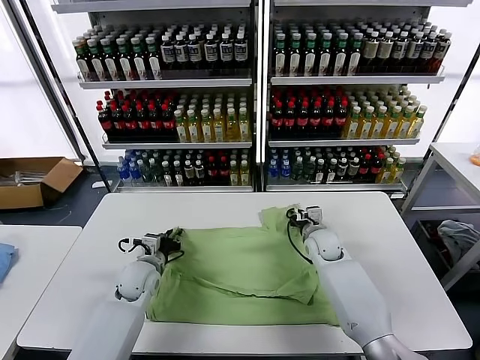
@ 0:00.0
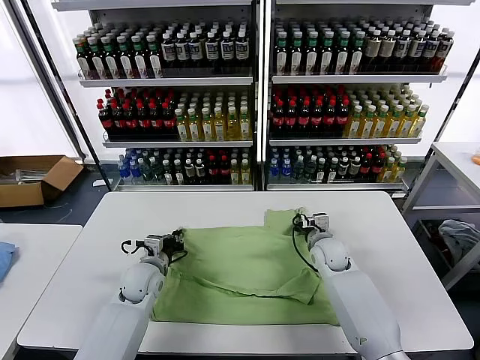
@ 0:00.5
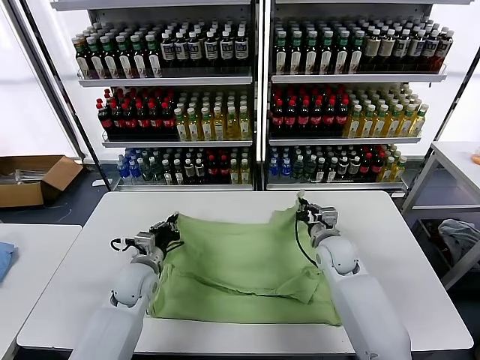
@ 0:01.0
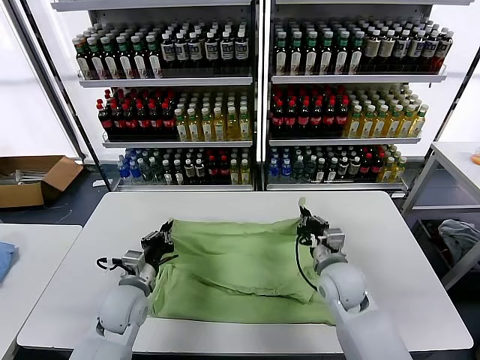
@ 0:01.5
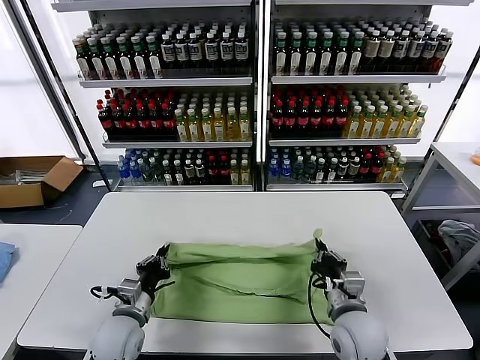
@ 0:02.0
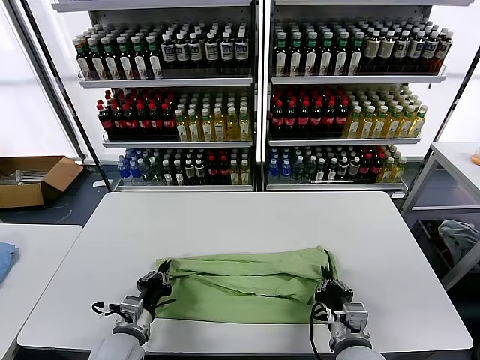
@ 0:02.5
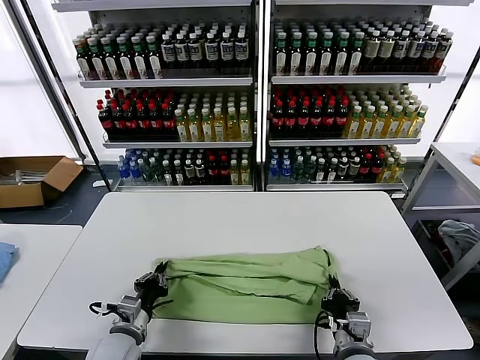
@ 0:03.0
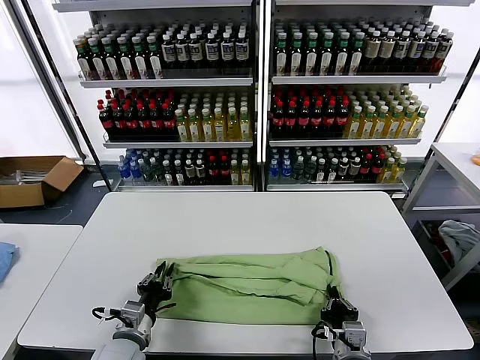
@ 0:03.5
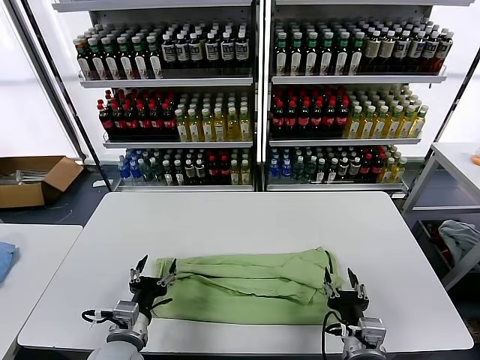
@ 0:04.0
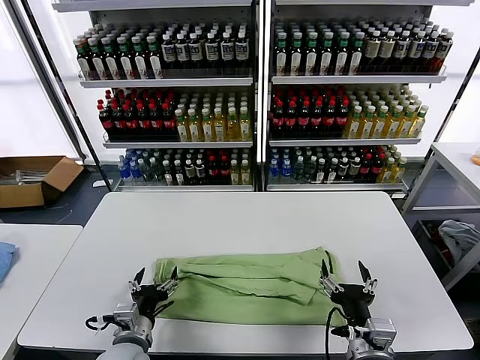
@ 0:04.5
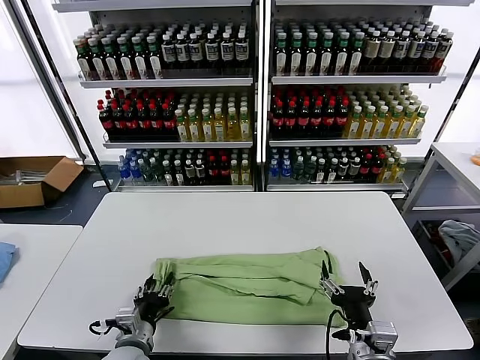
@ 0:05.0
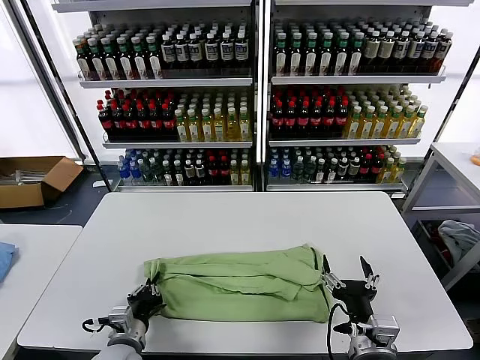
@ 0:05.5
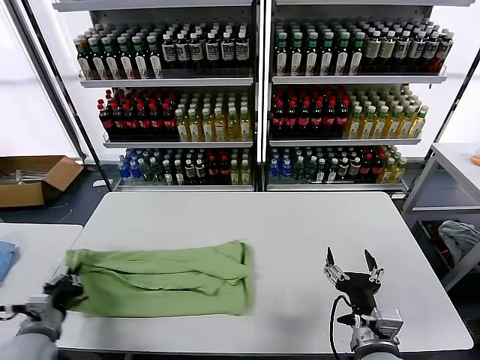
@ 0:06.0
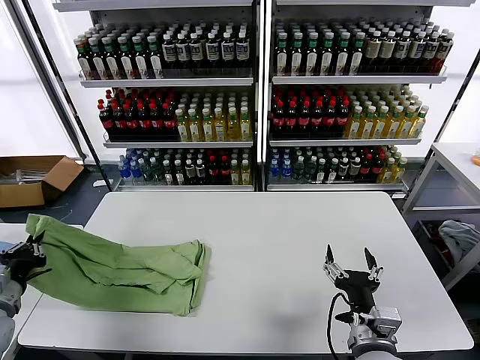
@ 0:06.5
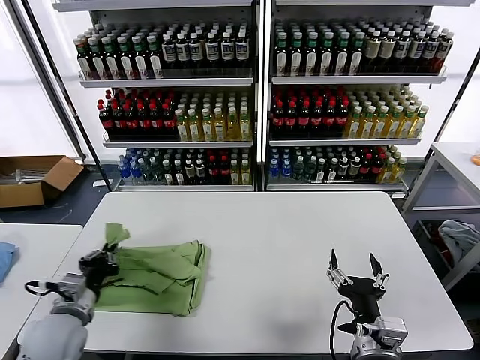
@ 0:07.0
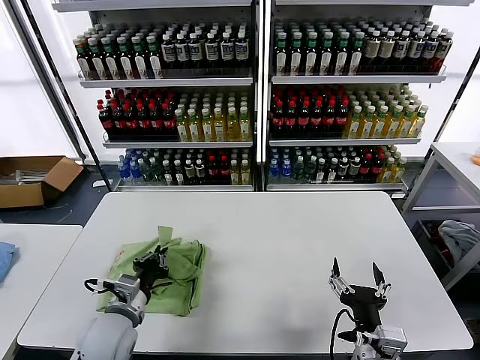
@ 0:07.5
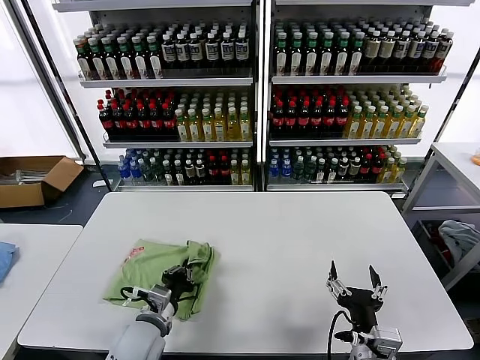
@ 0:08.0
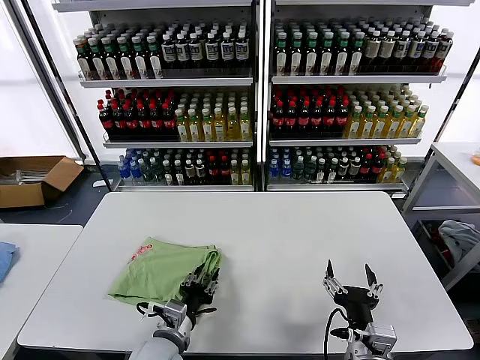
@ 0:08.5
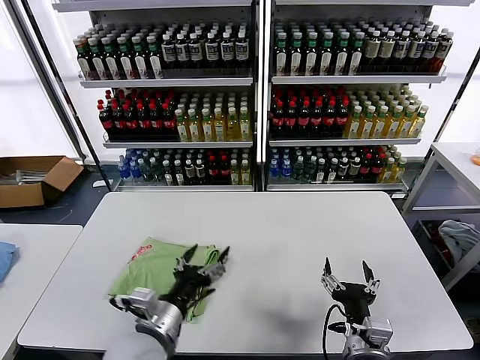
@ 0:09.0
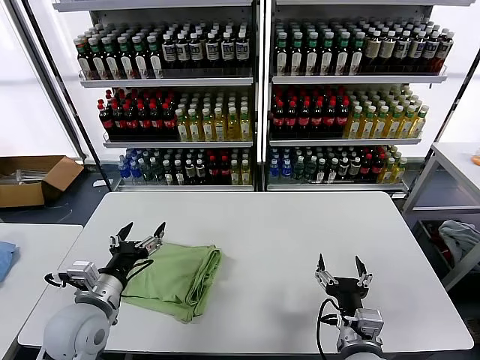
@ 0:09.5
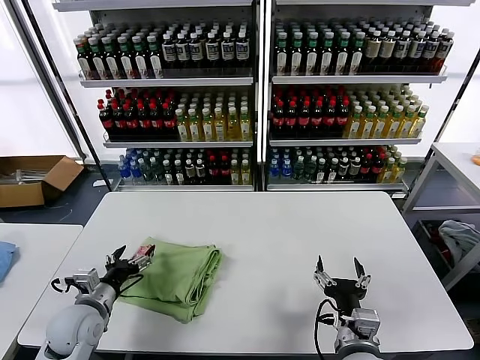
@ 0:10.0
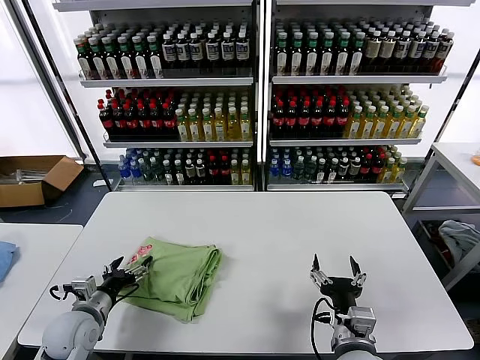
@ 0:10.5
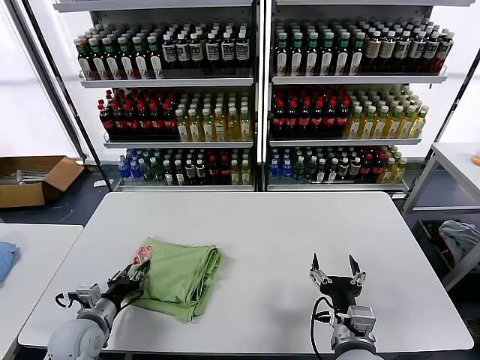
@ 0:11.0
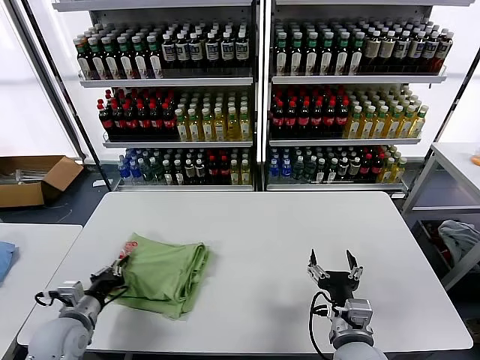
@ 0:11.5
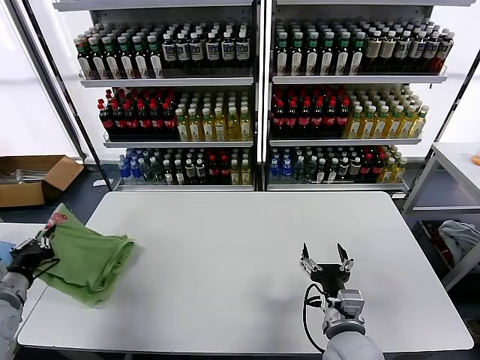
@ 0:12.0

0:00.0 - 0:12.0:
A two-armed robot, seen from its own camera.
Task of the whole recording: fold and organize the clothes.
Step, 0:00.5 - 0:03.5: use both grippers to drag the upper edge of the fabric backward and fold it over the lower edge.
Step, 0:04.5 - 0:05.0: use the left gripper to clamp the left edge of the fabric.
Step, 0:05.5 - 0:08.5: use the left gripper to drag the left edge of the fabric to the left and folds it over the right edge.
0:00.0 - 0:02.0: The left gripper shifts about 15 cm backward, while the right gripper heads backward, covering approximately 25 cm.
0:02.0 - 0:04.0: Both grippers move backward, approximately 5 cm. The right gripper opens its fingers. Meanwhile the left gripper opens its fingers.
0:04.0 - 0:06.0: The left gripper moves to the left, about 15 cm, and closes up.
0:06.0 - 0:08.0: The left gripper is displaced to the right by about 20 cm.
0:08.0 - 0:10.0: The left gripper shifts approximately 15 cm to the left, and opens up.
0:10.0 - 0:12.0: The left gripper travels to the left and upward by approximately 15 cm, and closes.

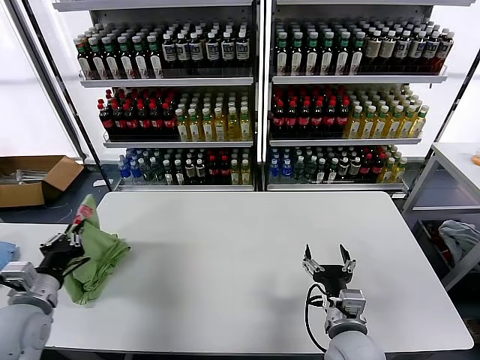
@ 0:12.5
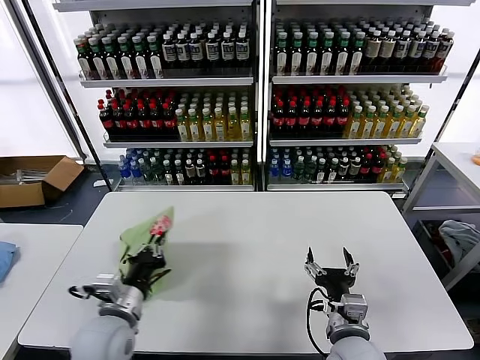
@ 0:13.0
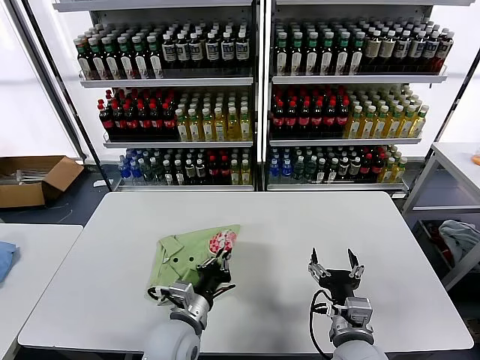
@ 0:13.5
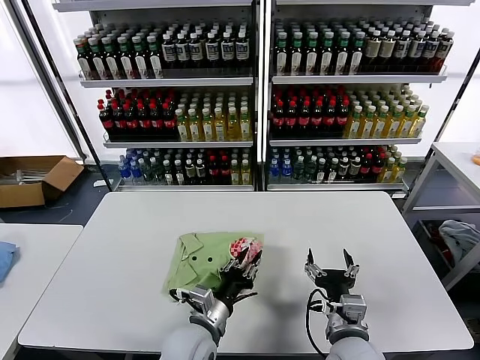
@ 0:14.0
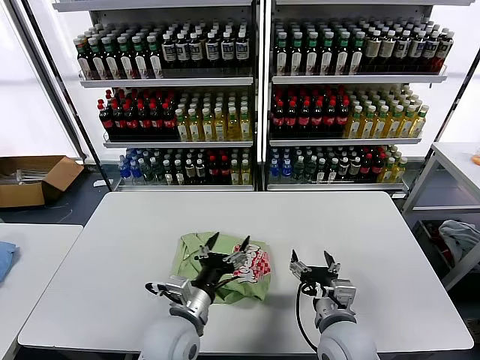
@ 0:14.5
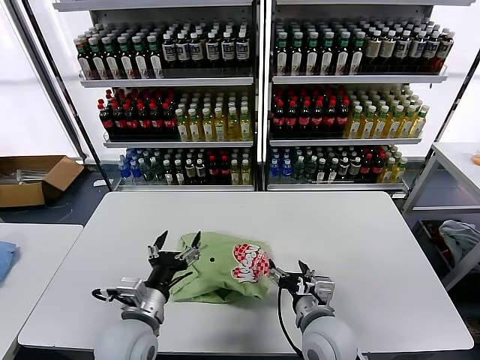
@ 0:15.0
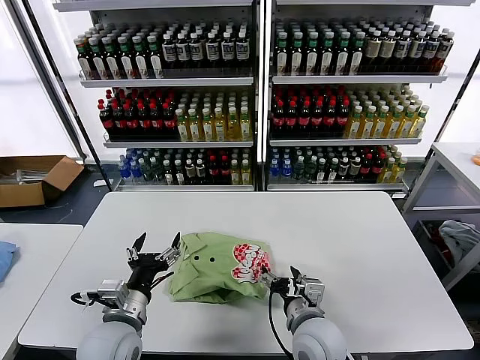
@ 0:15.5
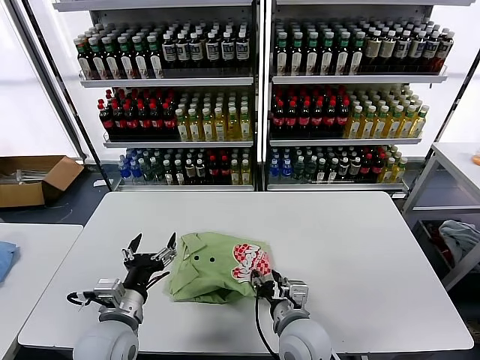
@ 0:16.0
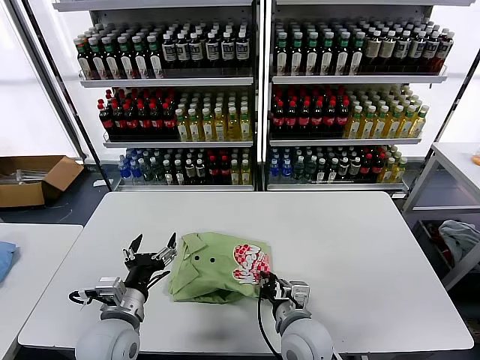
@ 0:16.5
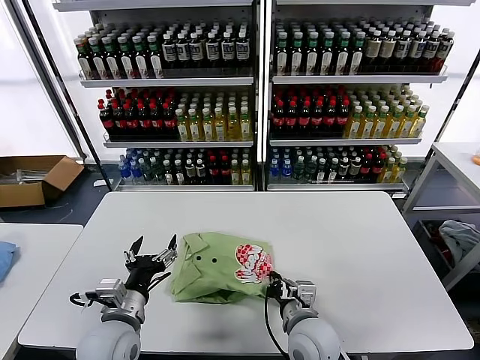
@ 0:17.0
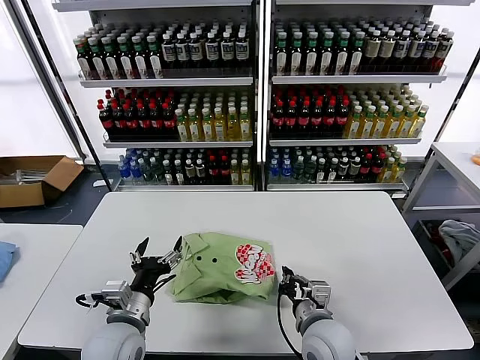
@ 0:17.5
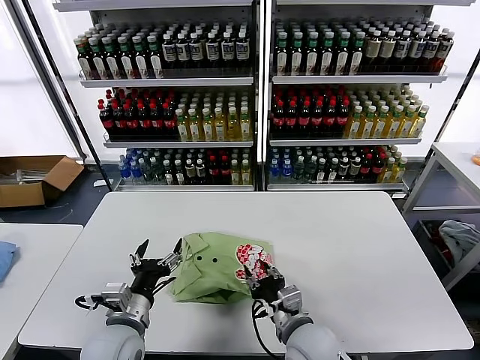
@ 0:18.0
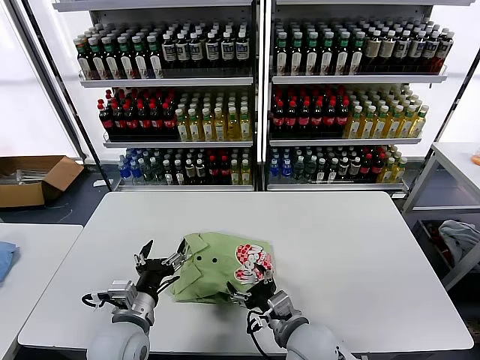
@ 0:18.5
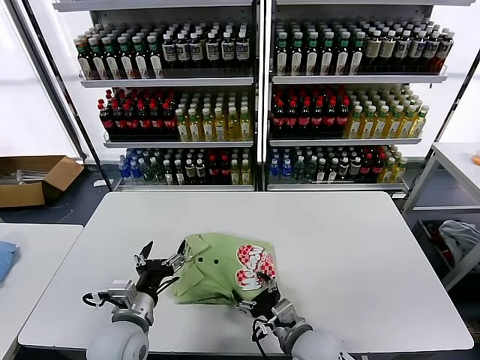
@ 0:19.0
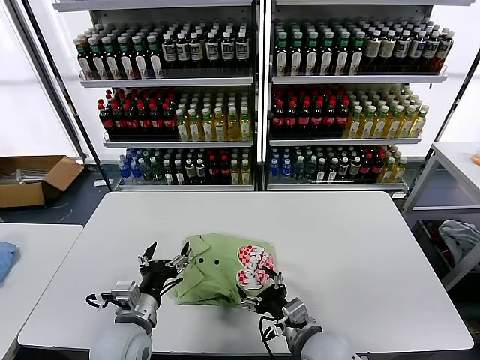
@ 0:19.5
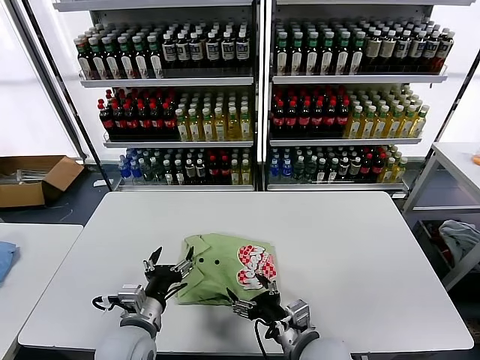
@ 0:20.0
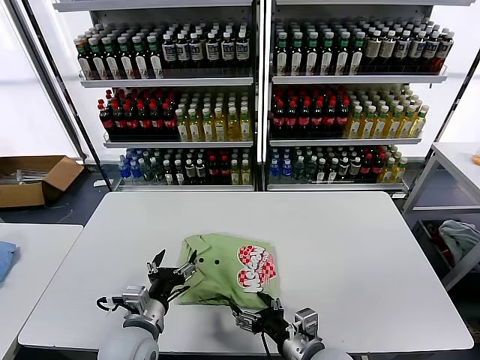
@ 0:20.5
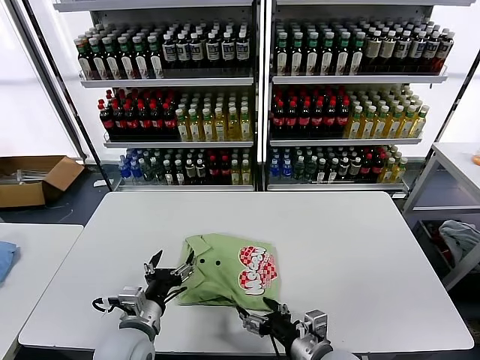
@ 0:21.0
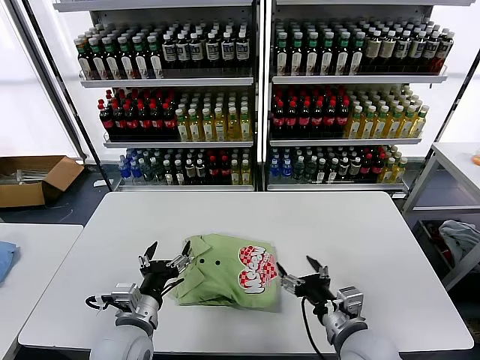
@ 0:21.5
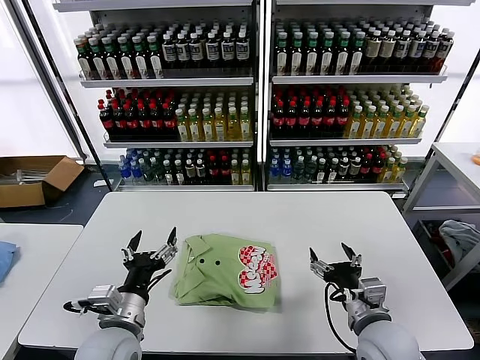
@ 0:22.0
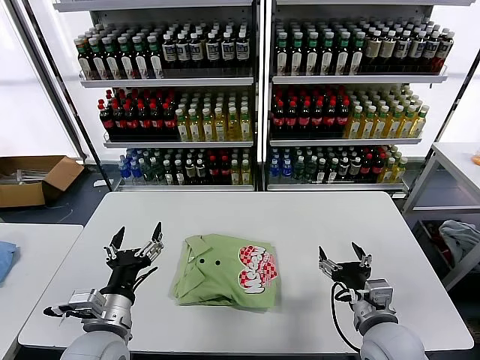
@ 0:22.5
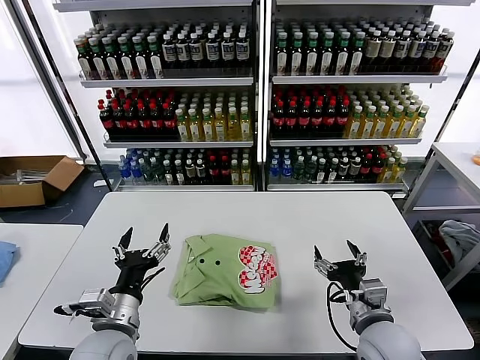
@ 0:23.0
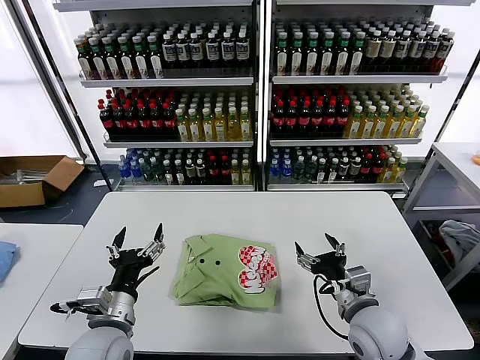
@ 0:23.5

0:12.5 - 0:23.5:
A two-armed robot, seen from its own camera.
Task of the whole recording: fold and organize the clothes.
Step, 0:14.5 - 0:21.0: Drag the clothes to the center of the table.
0:12.5 - 0:14.5: The left gripper shifts some 25 cm to the right, and opens up.
0:14.5 - 0:16.0: The right gripper goes some 5 cm to the left, and closes. Meanwhile the left gripper moves to the left, approximately 10 cm.
0:16.0 - 0:18.0: The right gripper closes, then reopens.
0:18.0 - 0:20.0: The right gripper opens its fingers.
0:20.0 - 0:21.5: The right gripper travels to the right by roughly 5 cm.
